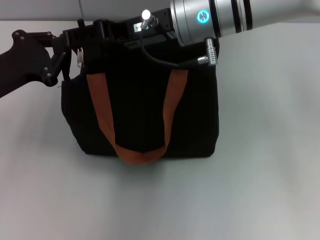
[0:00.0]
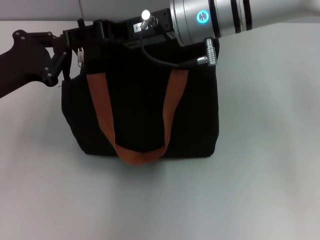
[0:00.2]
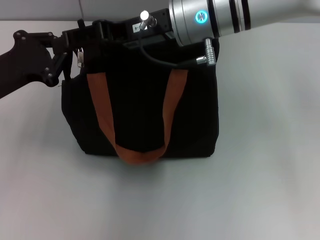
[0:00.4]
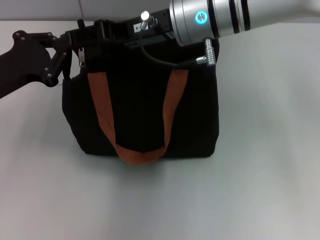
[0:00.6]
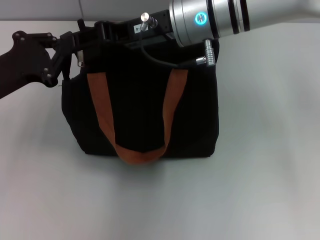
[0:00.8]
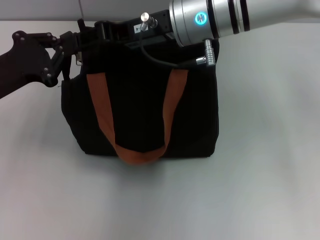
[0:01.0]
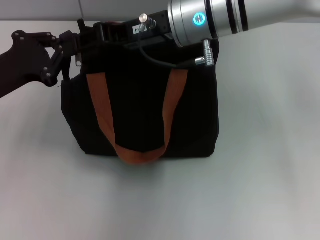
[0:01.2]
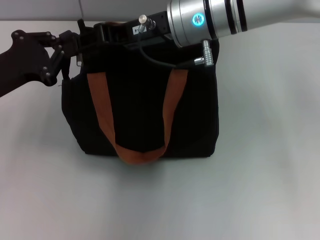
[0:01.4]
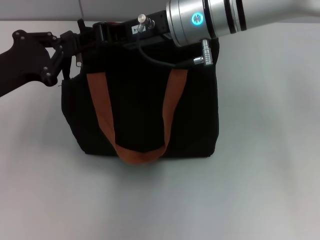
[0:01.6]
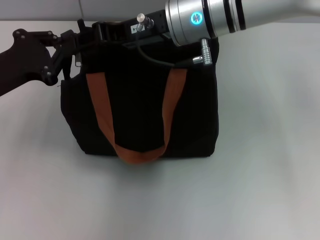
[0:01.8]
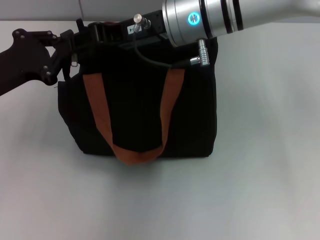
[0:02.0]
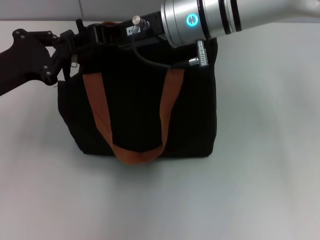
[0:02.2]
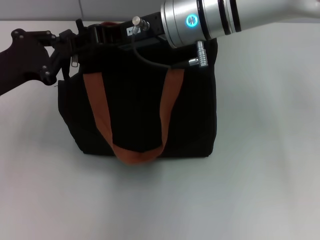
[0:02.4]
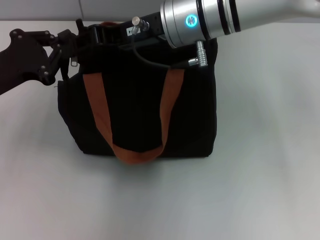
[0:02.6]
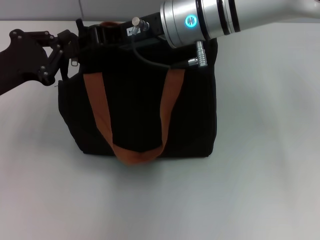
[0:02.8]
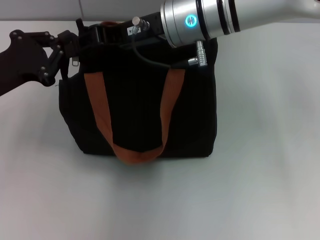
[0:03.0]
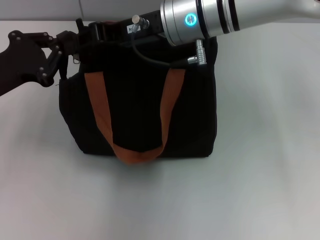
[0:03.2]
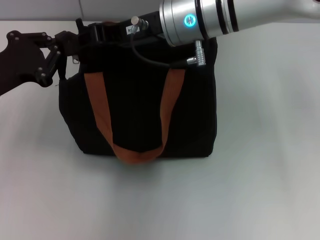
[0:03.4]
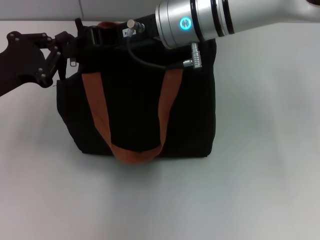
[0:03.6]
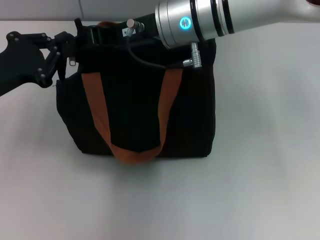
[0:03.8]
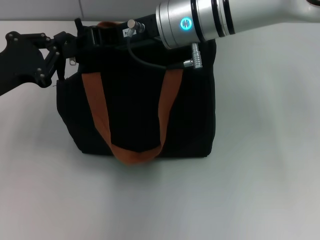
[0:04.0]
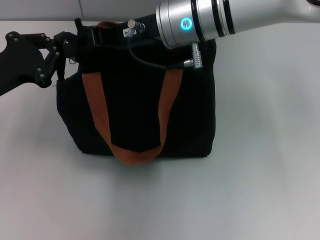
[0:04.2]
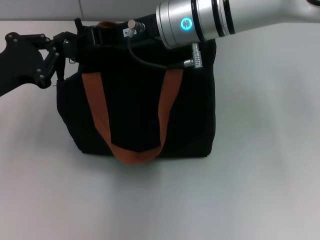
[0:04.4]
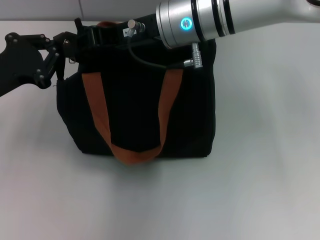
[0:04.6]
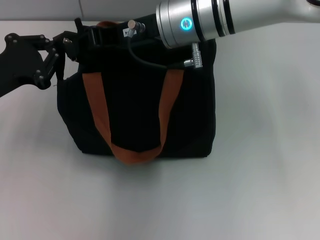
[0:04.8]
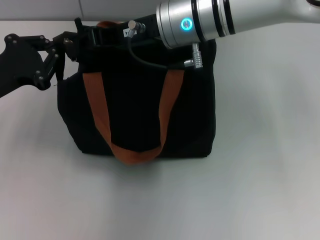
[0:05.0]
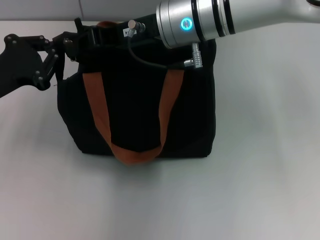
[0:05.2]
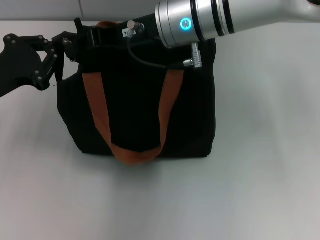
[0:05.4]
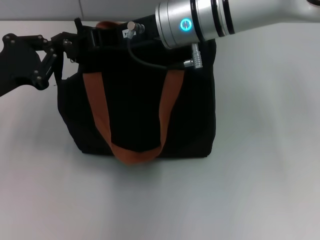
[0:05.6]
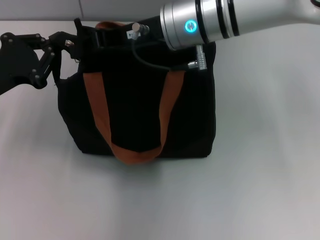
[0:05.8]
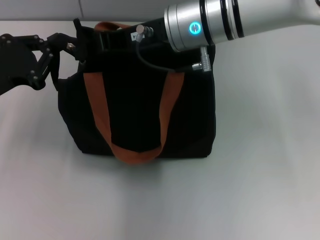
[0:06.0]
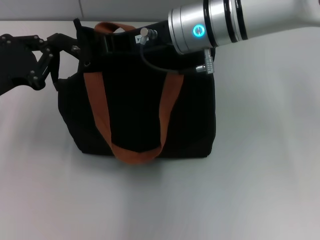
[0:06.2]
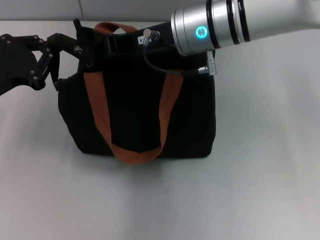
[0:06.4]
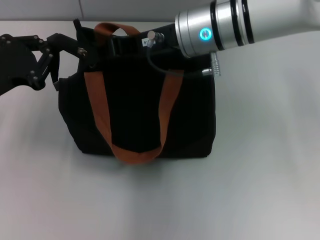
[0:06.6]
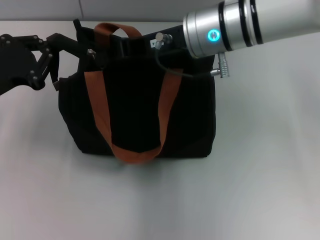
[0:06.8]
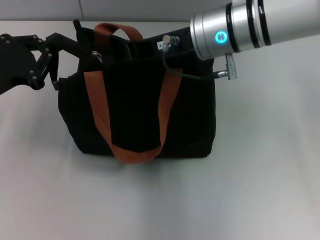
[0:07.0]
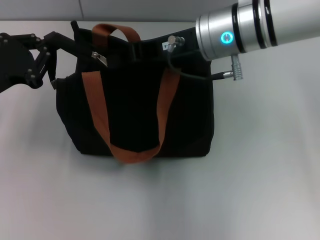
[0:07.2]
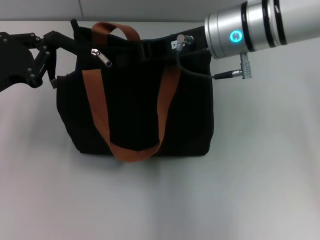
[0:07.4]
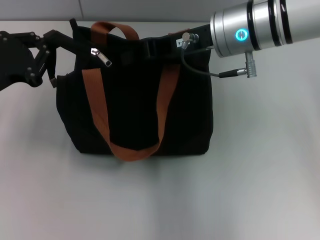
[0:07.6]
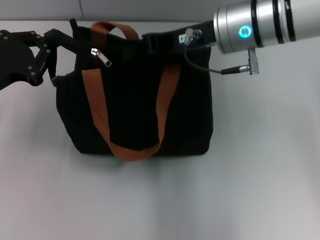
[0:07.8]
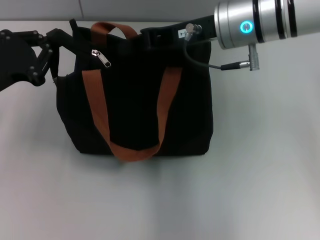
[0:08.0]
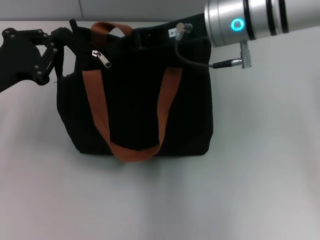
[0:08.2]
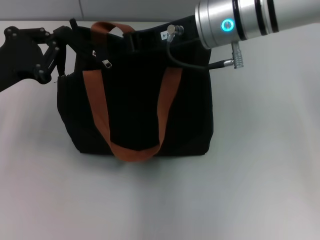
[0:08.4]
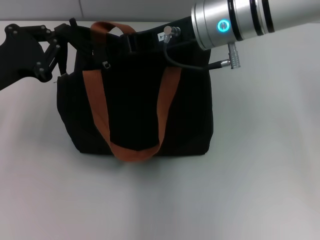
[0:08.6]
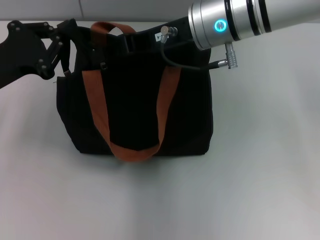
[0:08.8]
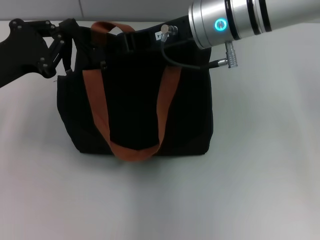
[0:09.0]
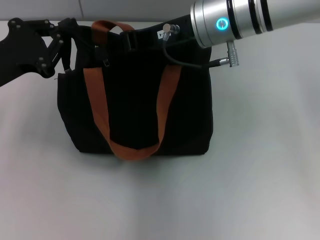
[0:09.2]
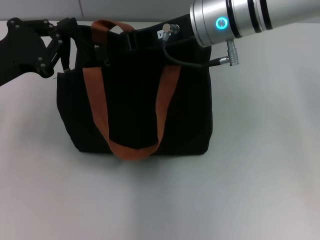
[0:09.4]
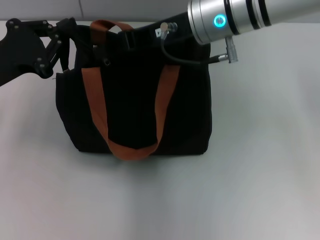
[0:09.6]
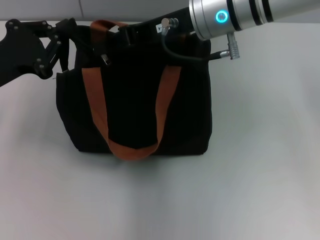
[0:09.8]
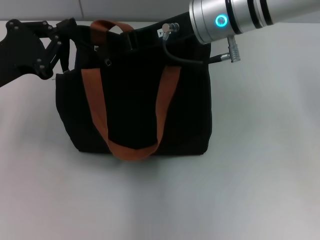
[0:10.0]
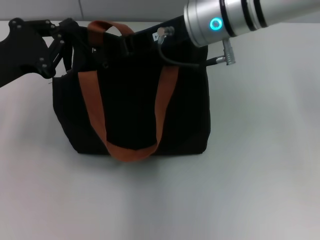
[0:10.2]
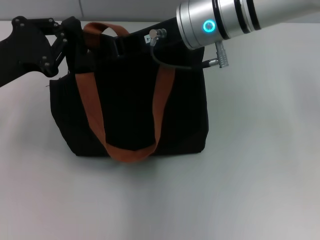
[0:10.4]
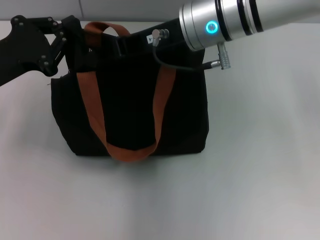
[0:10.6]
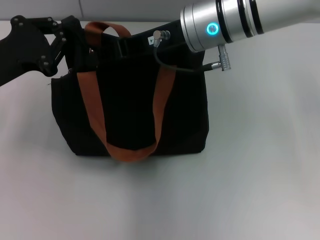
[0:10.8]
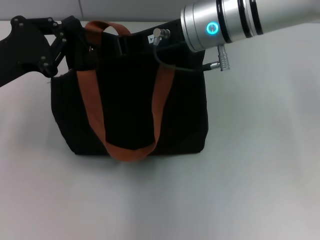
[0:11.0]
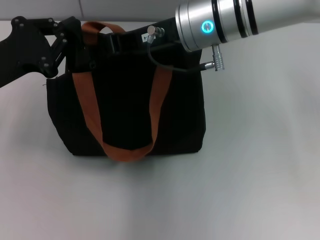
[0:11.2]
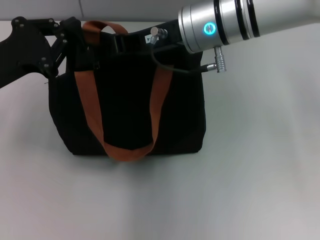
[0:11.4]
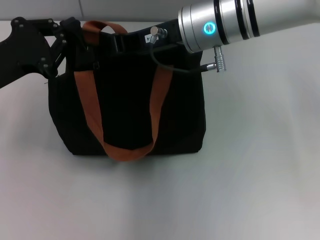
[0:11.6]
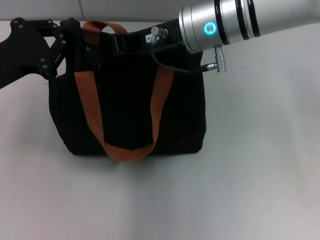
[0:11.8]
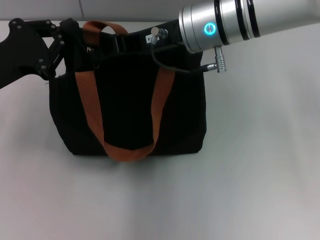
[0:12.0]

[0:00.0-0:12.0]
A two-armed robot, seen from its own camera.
0.0 to 1.6 s: The right gripper closes up.
1.6 to 4.4 s: Both grippers stay put.
4.4 to 6.0 s: Neither gripper changes place.
6.0 to 7.6 s: The right gripper goes about 5 cm to the right.
7.6 to 9.0 s: The right gripper opens.
9.0 to 12.0 s: The grippers stay close to where they were, moving slightly.

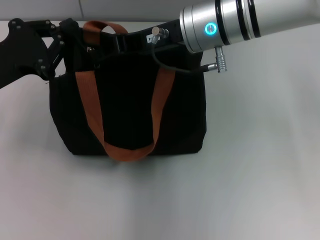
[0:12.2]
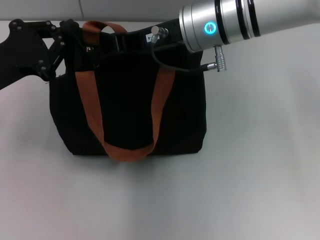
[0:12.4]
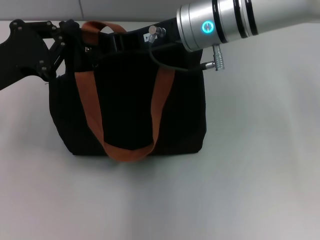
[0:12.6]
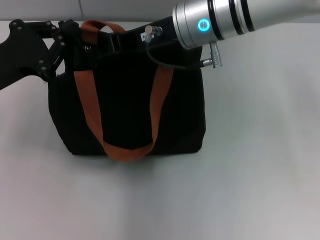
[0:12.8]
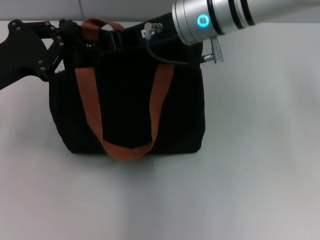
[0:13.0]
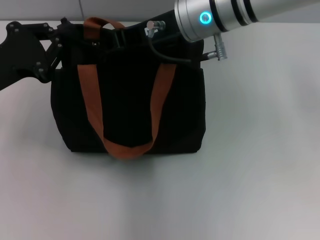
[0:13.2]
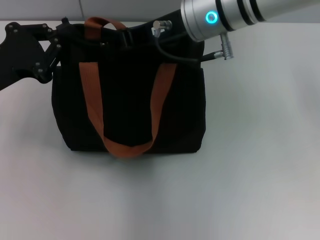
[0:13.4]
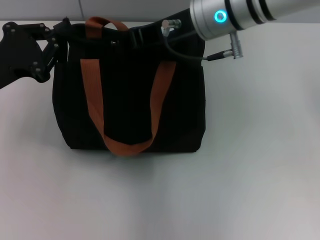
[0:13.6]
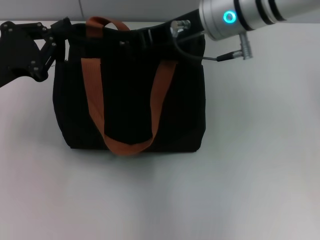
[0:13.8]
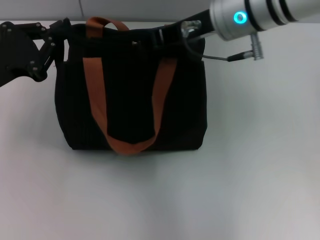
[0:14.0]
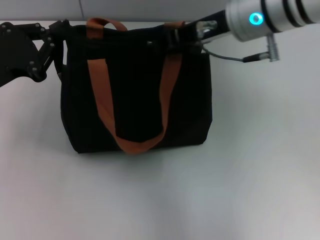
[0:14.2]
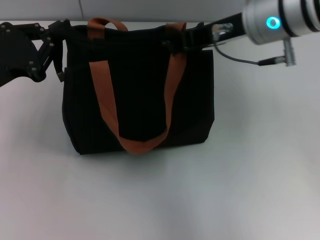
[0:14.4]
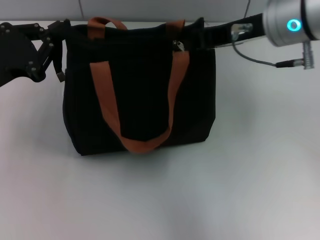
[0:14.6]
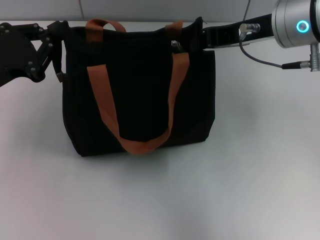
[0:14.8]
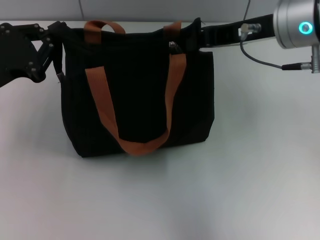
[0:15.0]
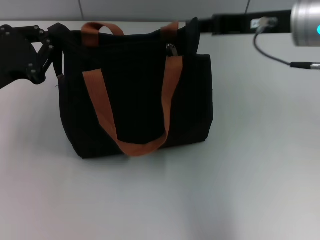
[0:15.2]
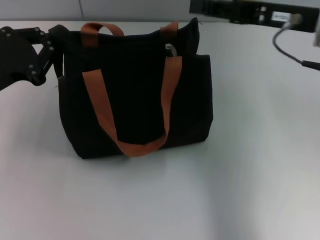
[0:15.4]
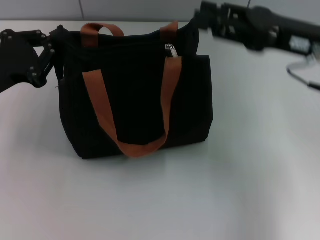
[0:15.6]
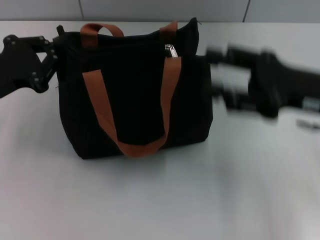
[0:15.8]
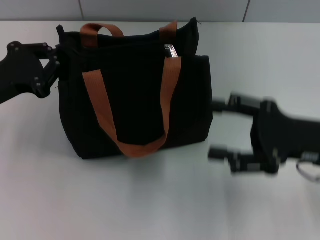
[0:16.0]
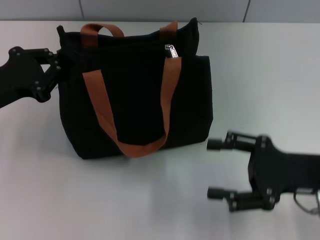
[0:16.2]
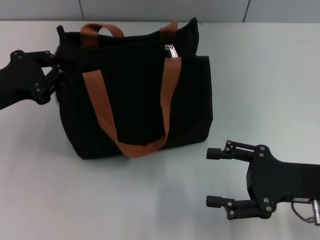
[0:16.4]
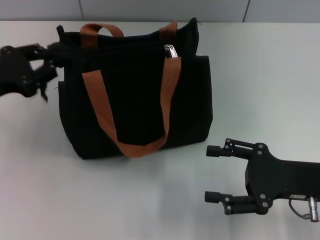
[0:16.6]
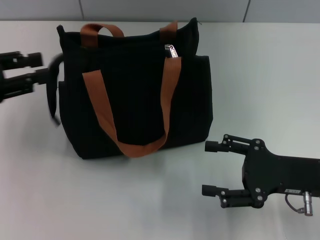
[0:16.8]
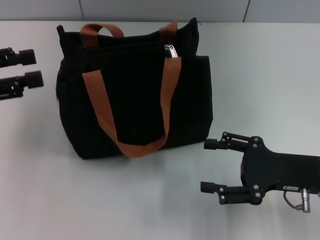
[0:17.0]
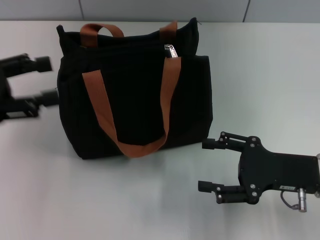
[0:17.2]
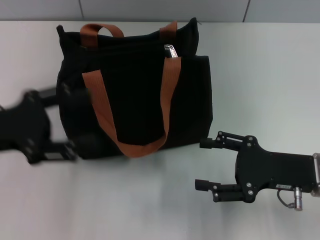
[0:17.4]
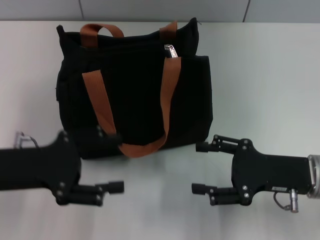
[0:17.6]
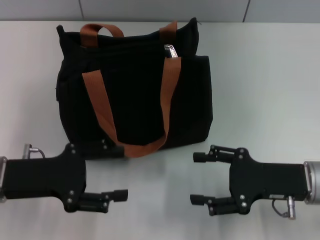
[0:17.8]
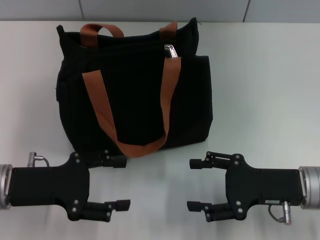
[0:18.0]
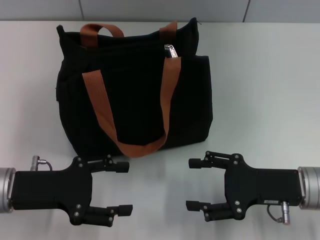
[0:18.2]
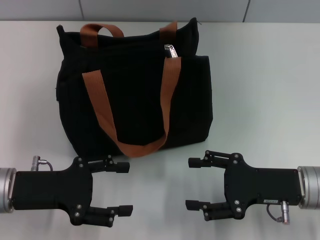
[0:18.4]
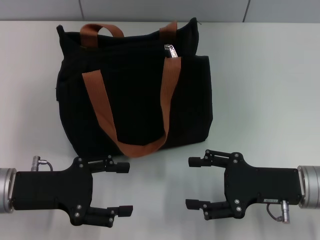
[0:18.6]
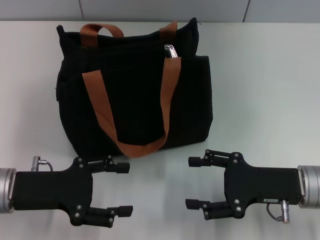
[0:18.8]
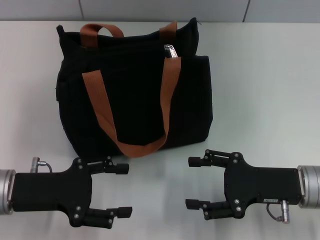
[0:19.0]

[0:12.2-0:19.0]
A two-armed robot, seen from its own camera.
Step, 12.2 to 15.0 s: Pull up the zipper with your right hand.
Step, 15.2 to 16.8 s: Grab the zipper with your left hand.
12.2 to 13.6 s: The grippers make only small movements.
13.6 to 15.0 s: The right gripper travels to the right by roughly 10 cm.
15.0 to 16.2 s: The right gripper shifts some 20 cm downward, backward and to the right, and opens its fingers.
16.2 to 17.6 s: The left gripper heads backward, covering about 5 cm, and opens its fingers.
17.6 to 19.0 s: The grippers move only a little.

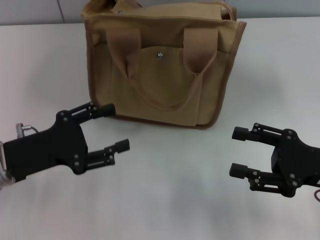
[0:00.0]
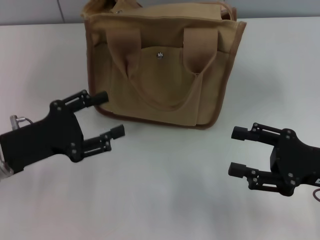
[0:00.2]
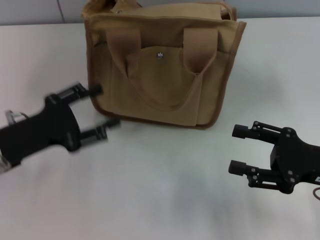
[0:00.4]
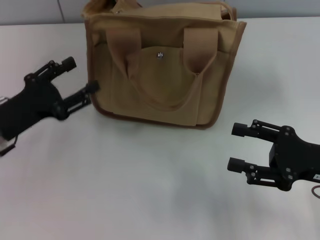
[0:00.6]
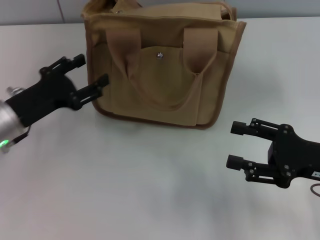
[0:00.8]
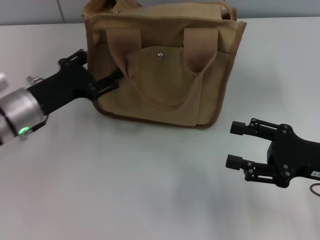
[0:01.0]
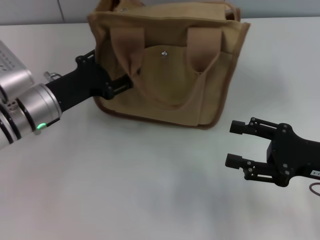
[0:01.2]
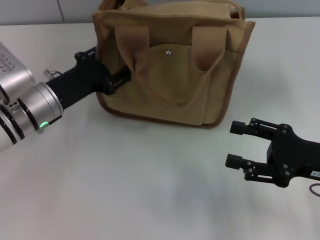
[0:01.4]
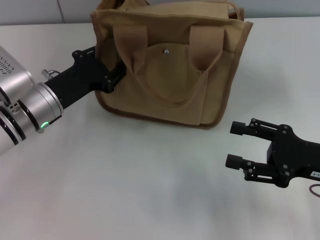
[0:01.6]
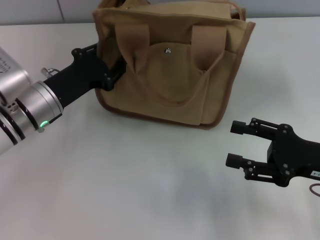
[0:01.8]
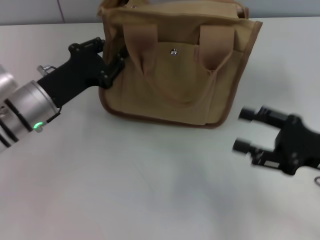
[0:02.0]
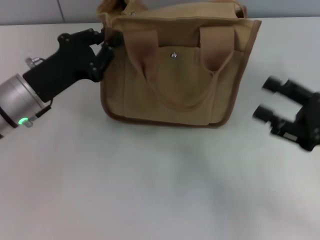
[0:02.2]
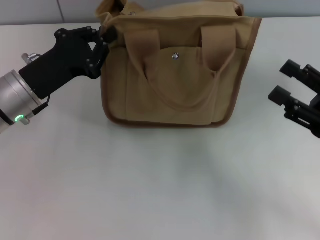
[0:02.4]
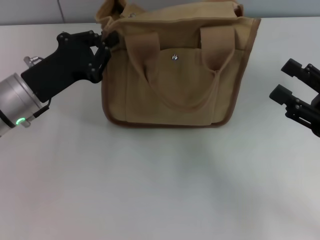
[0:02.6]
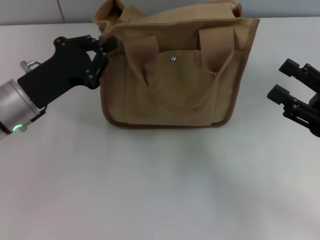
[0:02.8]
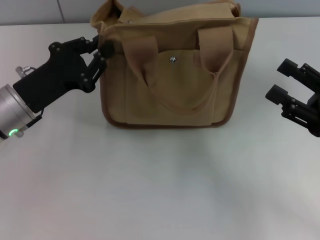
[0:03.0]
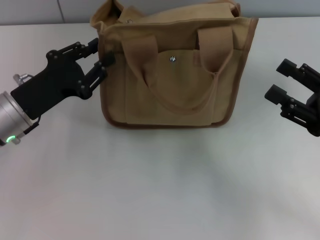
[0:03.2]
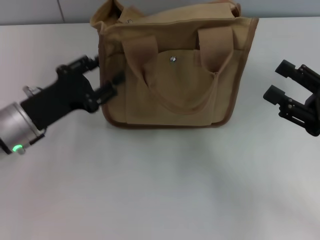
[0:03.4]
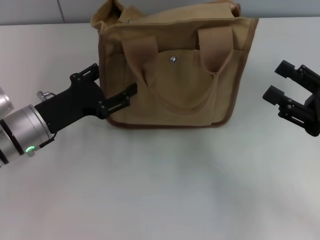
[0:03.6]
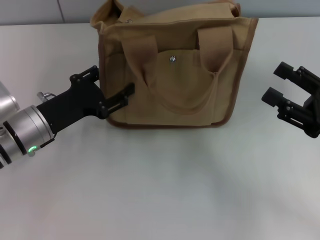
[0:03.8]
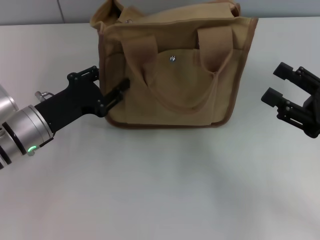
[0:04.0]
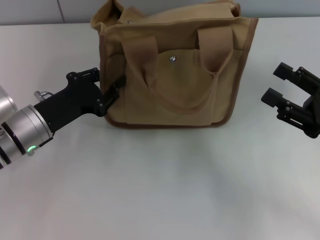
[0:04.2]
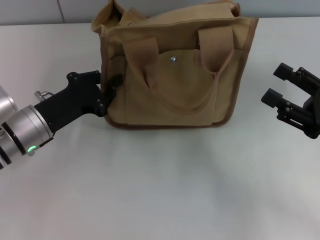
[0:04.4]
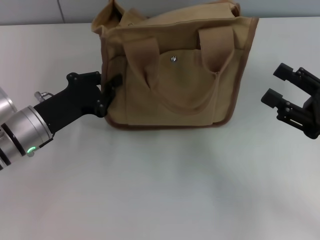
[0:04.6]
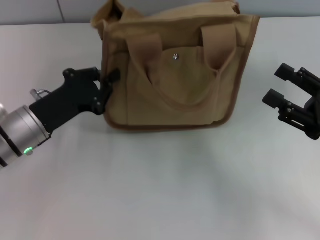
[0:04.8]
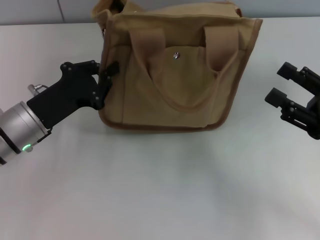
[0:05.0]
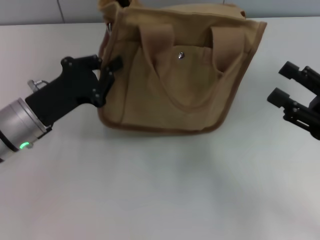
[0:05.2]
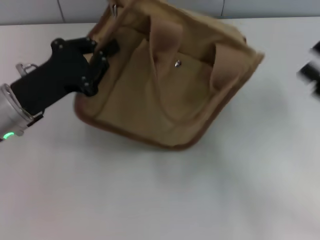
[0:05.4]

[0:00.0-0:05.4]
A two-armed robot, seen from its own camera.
0.0 to 1.4 s: The left gripper moves forward, some 10 cm.
1.4 to 2.8 s: The left gripper closes up.
2.8 to 4.0 s: The left gripper opens its fingers.
4.0 to 5.4 s: The left gripper travels upward by roughly 5 cm, and closes up.
